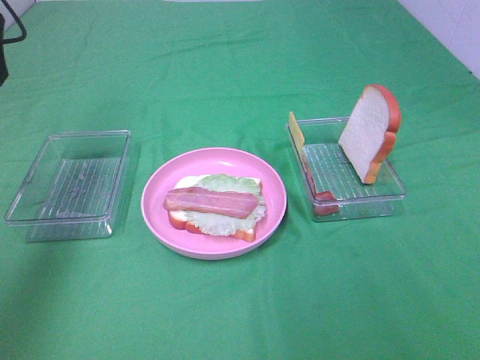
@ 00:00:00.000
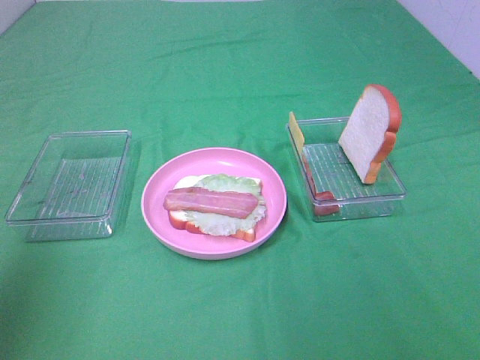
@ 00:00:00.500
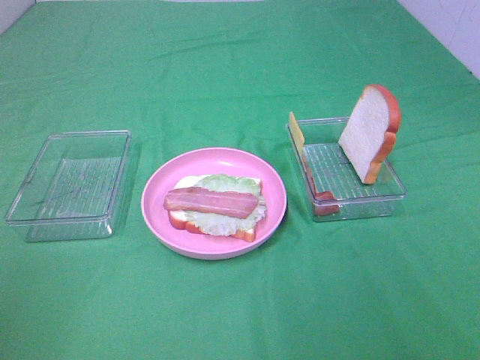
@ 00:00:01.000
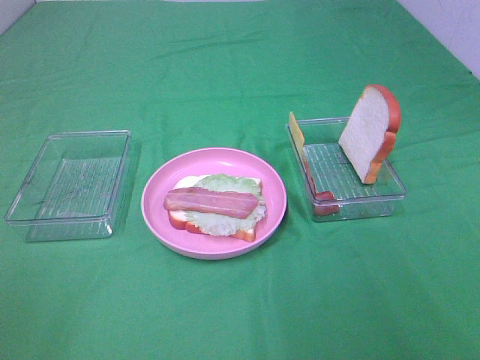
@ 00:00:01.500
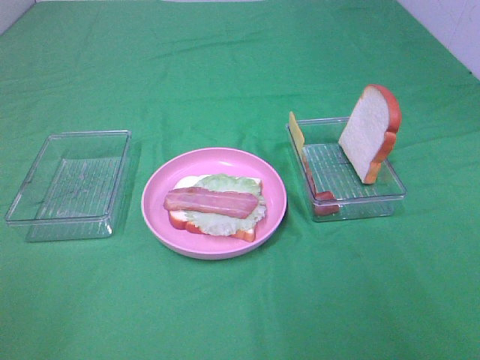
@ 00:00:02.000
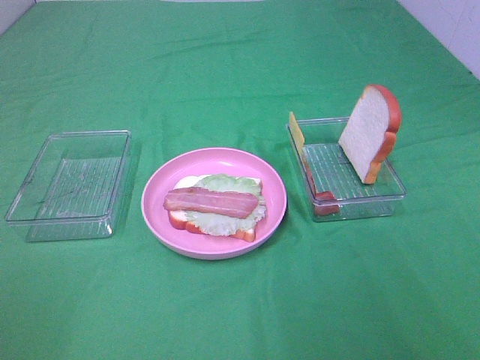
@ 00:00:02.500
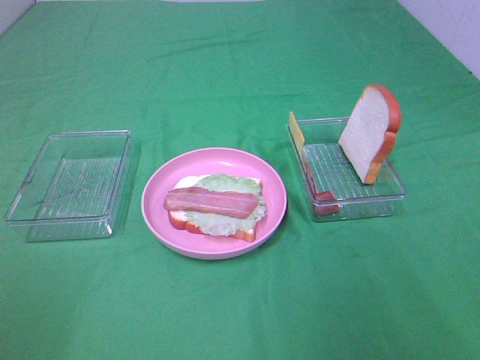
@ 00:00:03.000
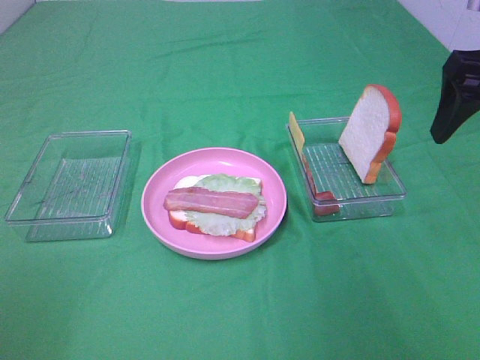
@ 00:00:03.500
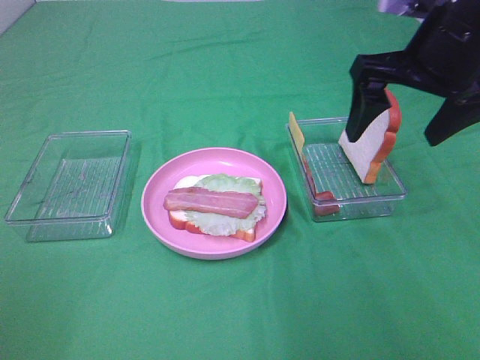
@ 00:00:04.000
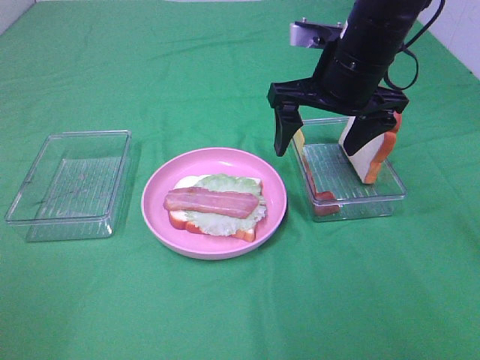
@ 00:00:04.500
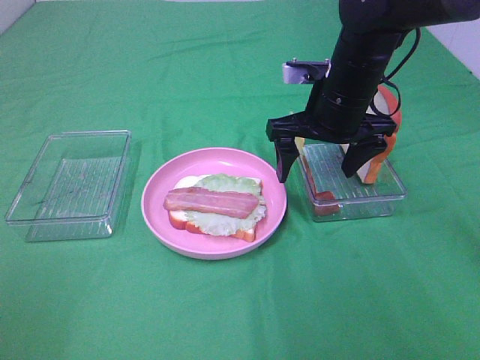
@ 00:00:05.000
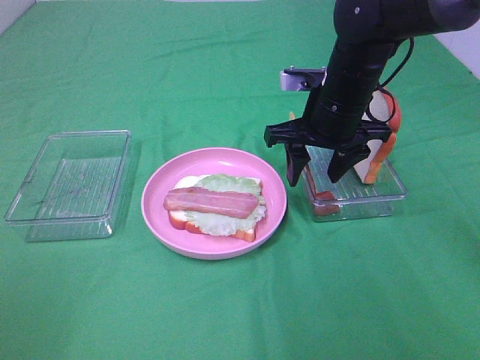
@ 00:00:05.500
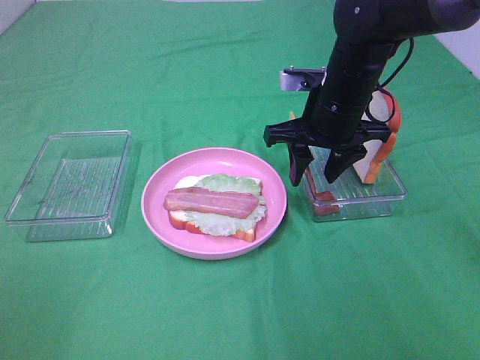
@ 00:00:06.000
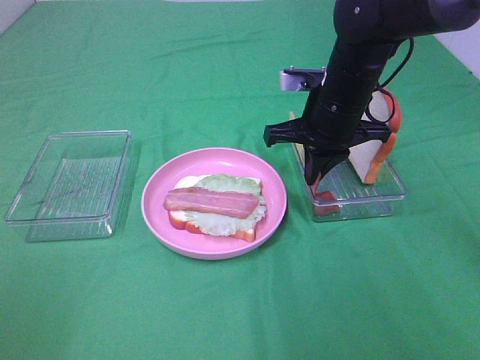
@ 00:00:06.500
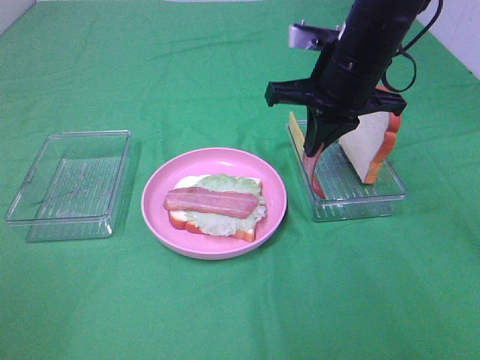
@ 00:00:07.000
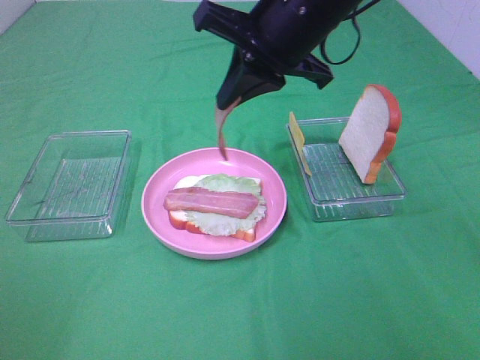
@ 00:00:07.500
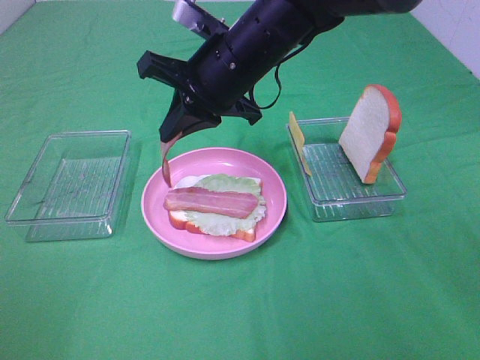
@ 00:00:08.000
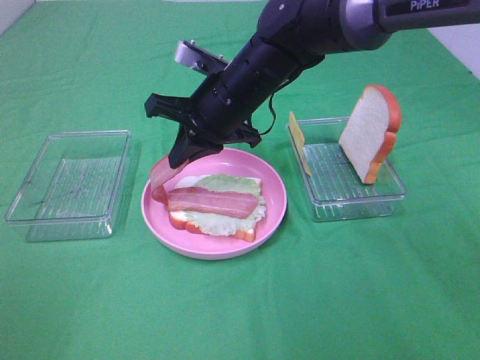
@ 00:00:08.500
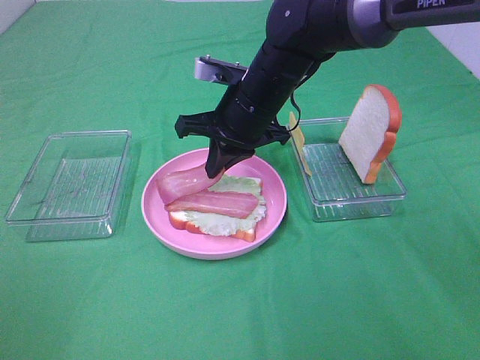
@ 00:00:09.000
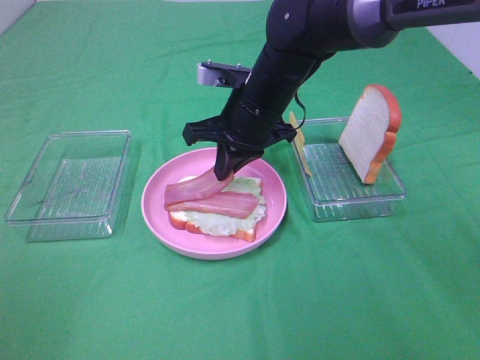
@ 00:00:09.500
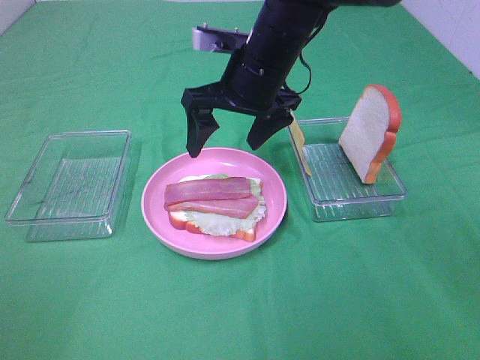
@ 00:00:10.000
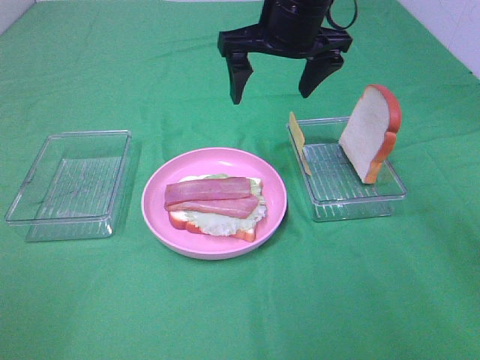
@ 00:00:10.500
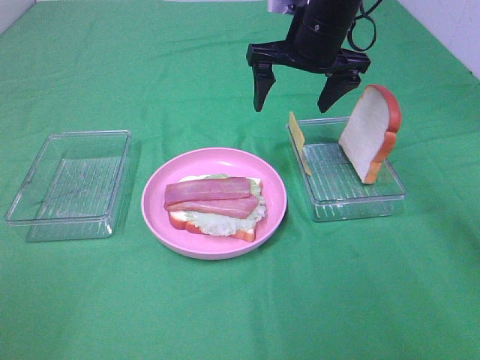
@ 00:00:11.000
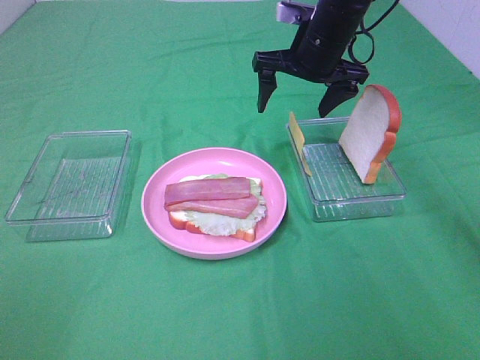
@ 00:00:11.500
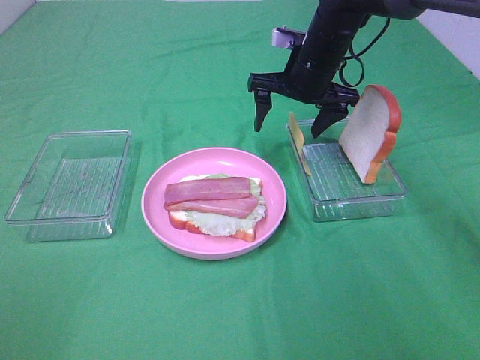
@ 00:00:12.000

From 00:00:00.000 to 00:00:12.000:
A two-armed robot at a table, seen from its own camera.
Task of the whole recording: Make sandwiches.
Step, from 00:00:00.000 to 00:00:06.500: Right hand:grab the bacon.
Step, from 00:00:07.000 to 00:00:10.000: Right hand:place bacon on bacon.
From 00:00:00.000 to 00:00:02.000: The left gripper goes some 35 cm backward.
From 00:00:02.000 to 00:00:04.000: The right gripper heads forward, covering roughly 30 cm.
From 00:00:04.000 to 00:00:06.000: The right gripper travels downward, to the left and forward by roughly 15 cm, and closes its fingers.
From 00:00:06.000 to 00:00:08.000: The right gripper travels to the left by about 10 cm, and closes up.
From 00:00:08.000 to 00:00:10.000: The right gripper opens its fingers.
From 00:00:10.000 to 00:00:12.000: The right gripper heads forward and to the right, covering roughly 10 cm.

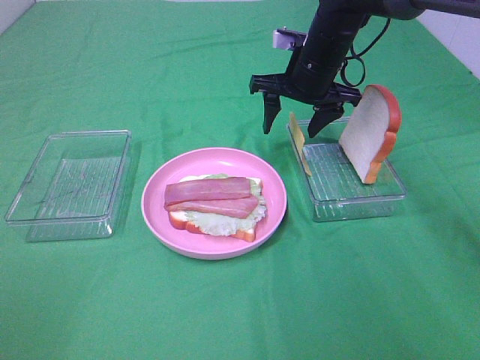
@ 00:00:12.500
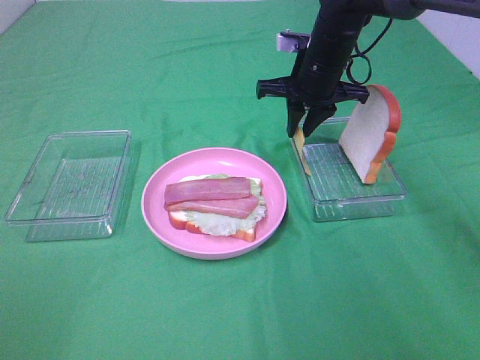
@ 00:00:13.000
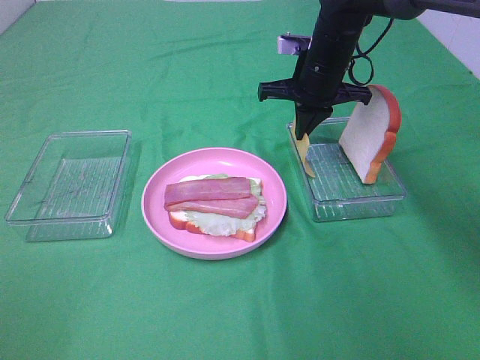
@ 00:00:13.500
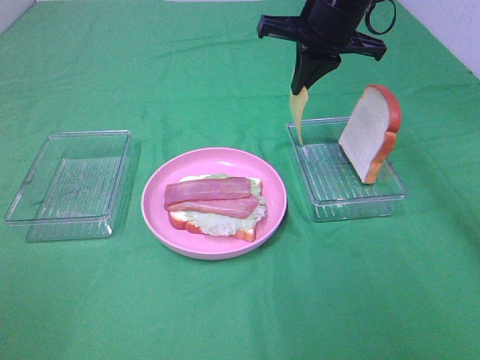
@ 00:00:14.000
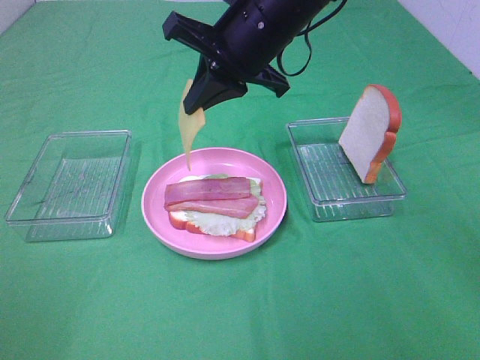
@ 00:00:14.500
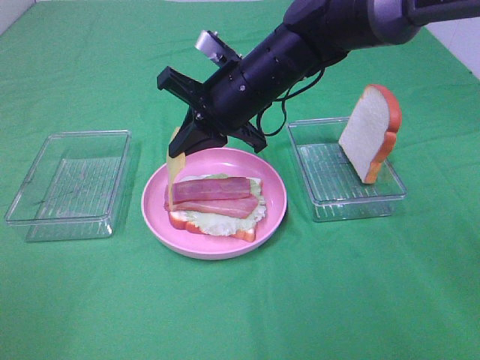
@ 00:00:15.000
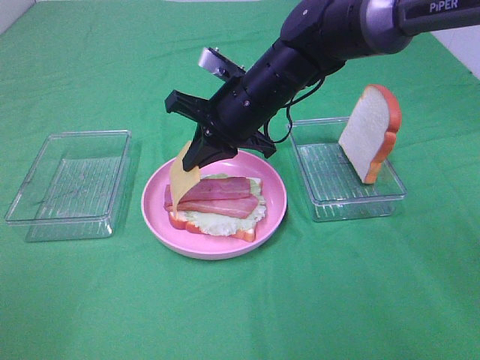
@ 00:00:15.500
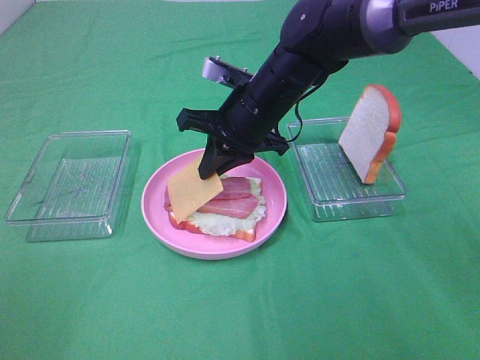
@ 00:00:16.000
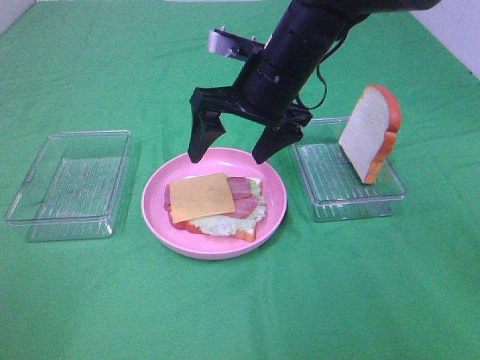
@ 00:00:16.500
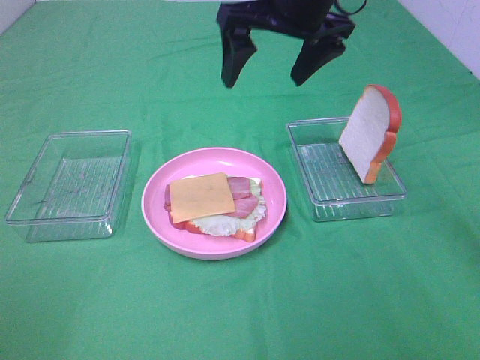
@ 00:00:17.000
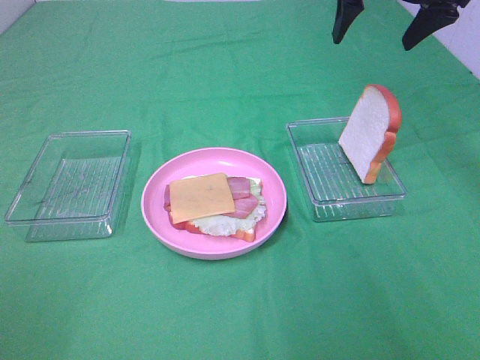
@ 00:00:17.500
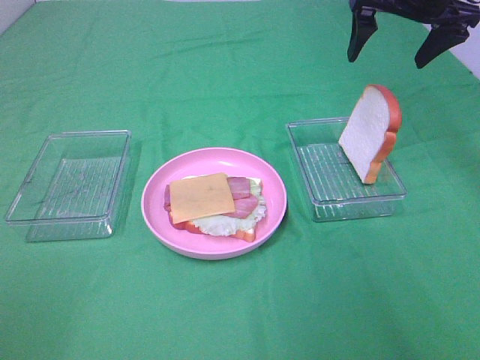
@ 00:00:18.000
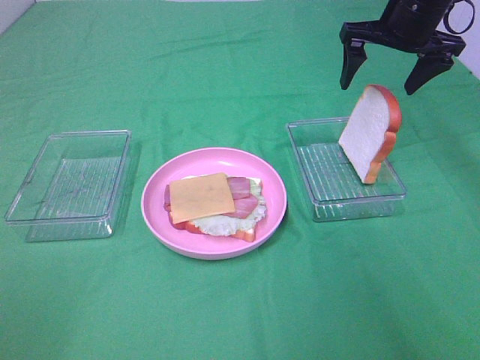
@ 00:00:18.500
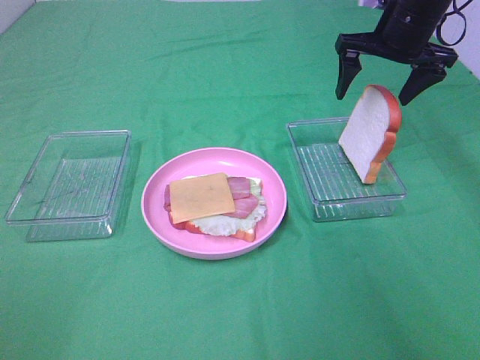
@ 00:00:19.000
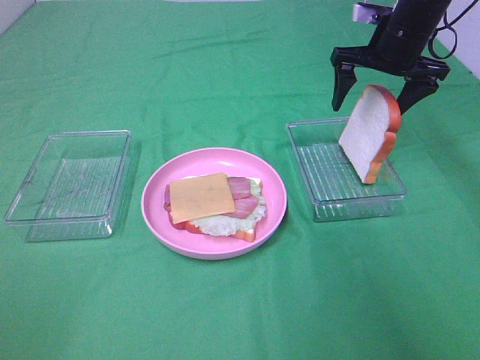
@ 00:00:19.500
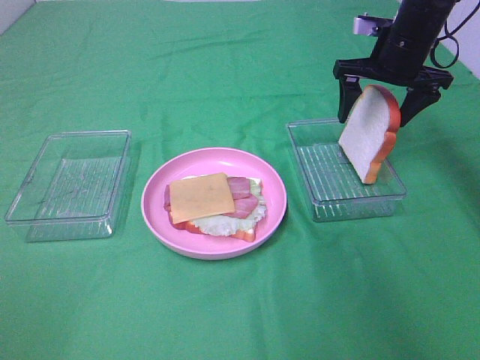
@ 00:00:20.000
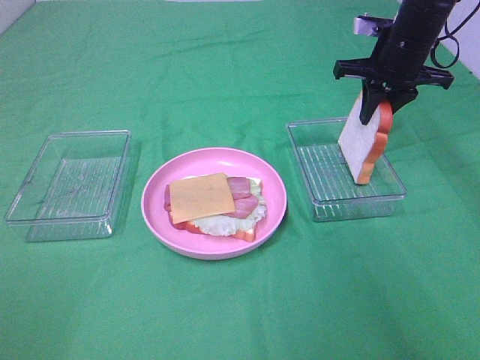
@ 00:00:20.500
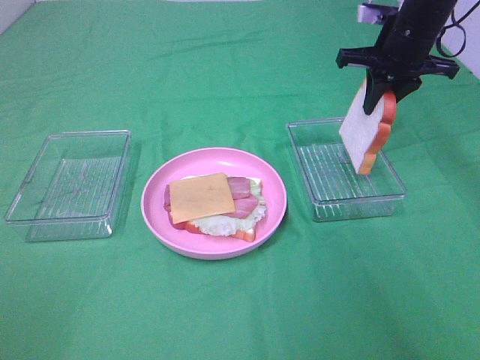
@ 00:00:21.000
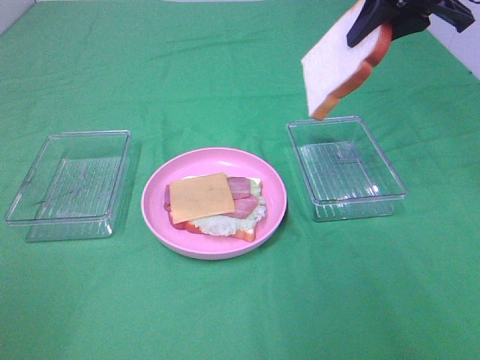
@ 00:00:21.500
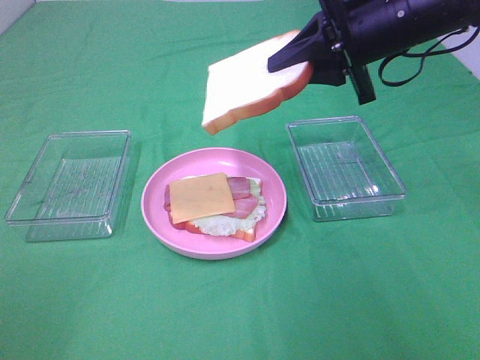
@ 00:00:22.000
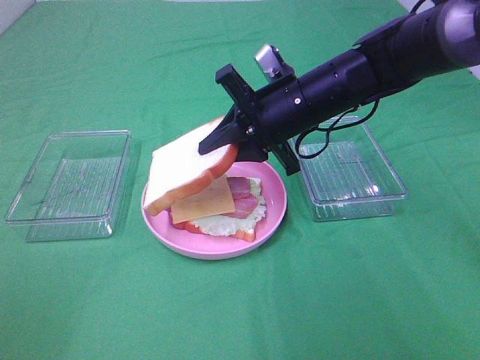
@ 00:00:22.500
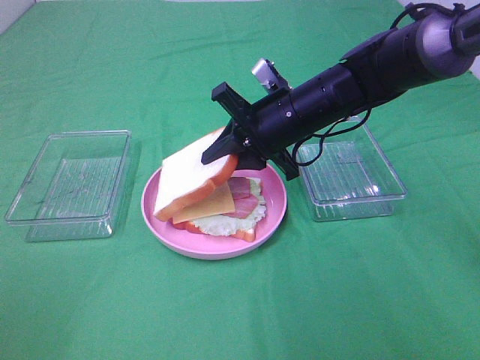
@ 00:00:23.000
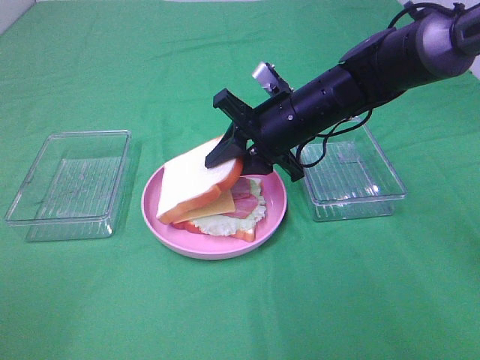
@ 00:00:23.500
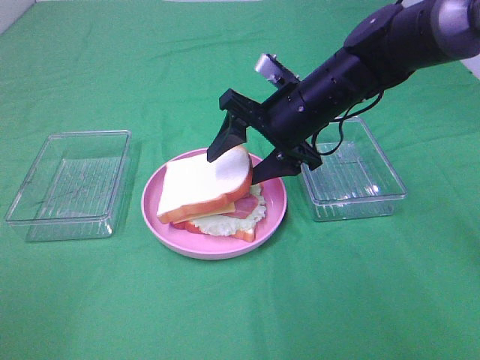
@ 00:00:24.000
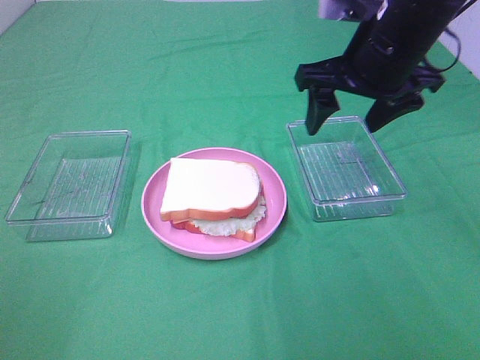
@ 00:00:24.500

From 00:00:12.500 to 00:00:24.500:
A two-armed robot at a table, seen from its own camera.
Task of the whole recording: Make sandwiches.
Step, from 00:00:14.000 to 00:00:16.000: Right hand:place the cheese slice on top of the bacon.
Step, from 00:00:16.500 to 00:00:20.500: Right hand:grab the bread slice.
Step, from 00:00:21.000 to 00:00:24.000: Right hand:place the bread slice on the cheese slice.
From 00:00:12.500 to 00:00:14.500: The right gripper is displaced backward, to the left and upward by some 15 cm, and closes up.
From 00:00:14.500 to 00:00:16.500: The right gripper opens its fingers.
From 00:00:16.500 to 00:00:18.500: The right gripper travels to the right and forward by approximately 20 cm.
From 00:00:18.500 to 00:00:20.500: The right gripper closes its fingers.
From 00:00:20.500 to 00:00:22.500: The right gripper travels to the left and backward by roughly 20 cm, and goes upward and returns, about 10 cm each way.
From 00:00:22.500 to 00:00:24.500: The right gripper is displaced upward and to the right by some 10 cm, and opens.

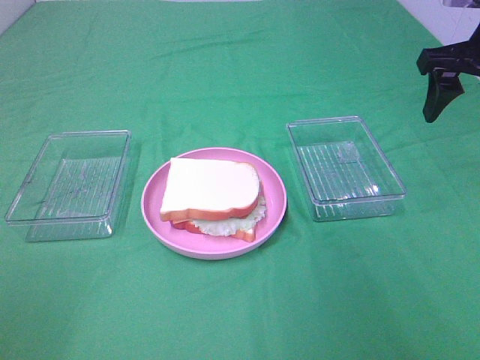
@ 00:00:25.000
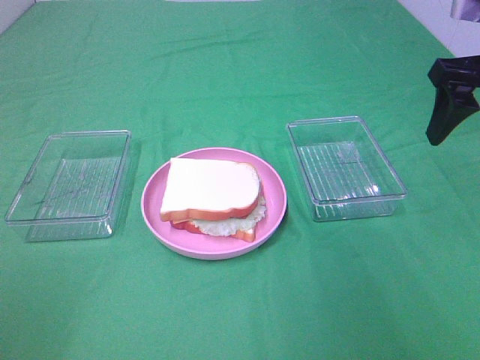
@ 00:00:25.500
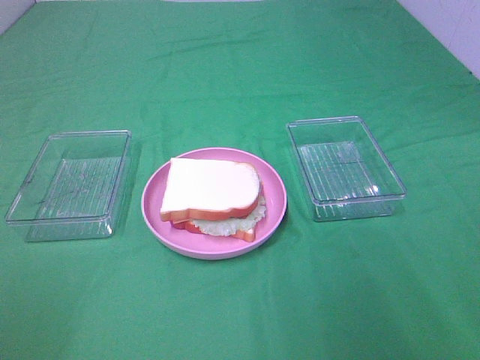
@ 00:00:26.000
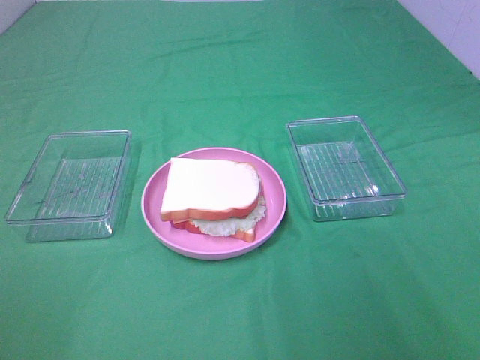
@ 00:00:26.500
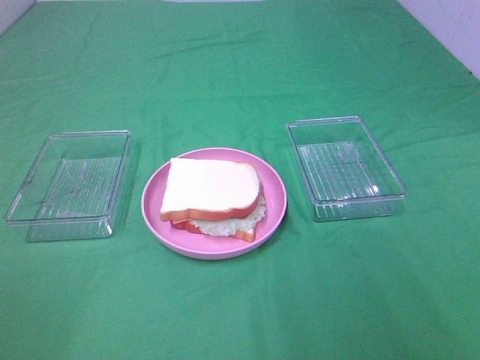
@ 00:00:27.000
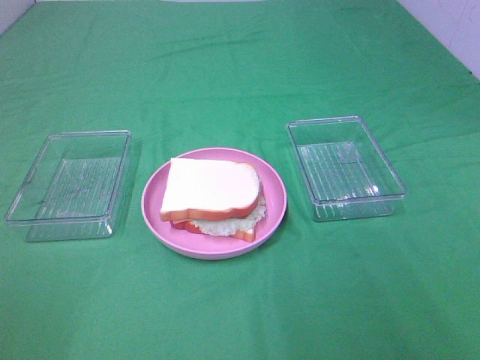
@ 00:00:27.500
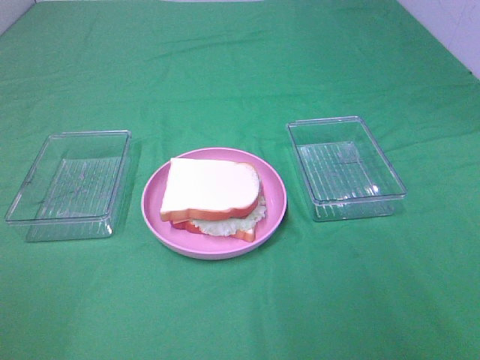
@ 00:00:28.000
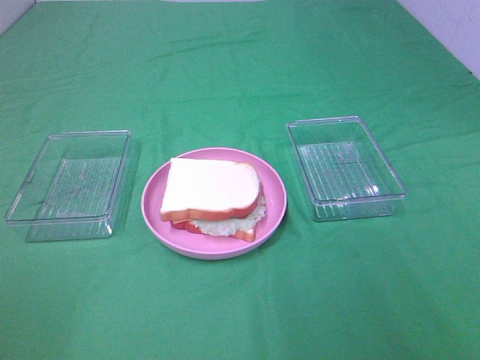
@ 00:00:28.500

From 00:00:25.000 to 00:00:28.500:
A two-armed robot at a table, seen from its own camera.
Task of the whole recording: Make sandwiches.
From 00:00:25.000 to 00:00:27.000: The right gripper shifts some 35 cm backward.
From 00:00:27.000 to 00:00:28.500: Both grippers stay put.
